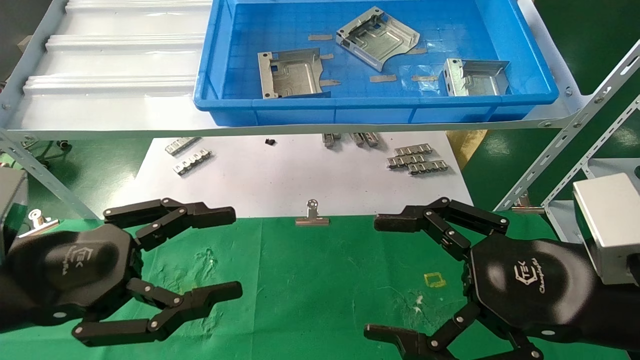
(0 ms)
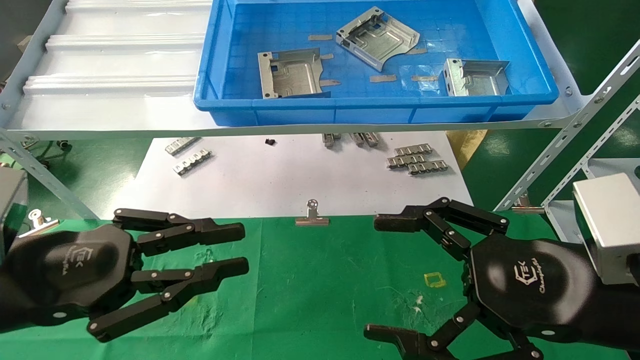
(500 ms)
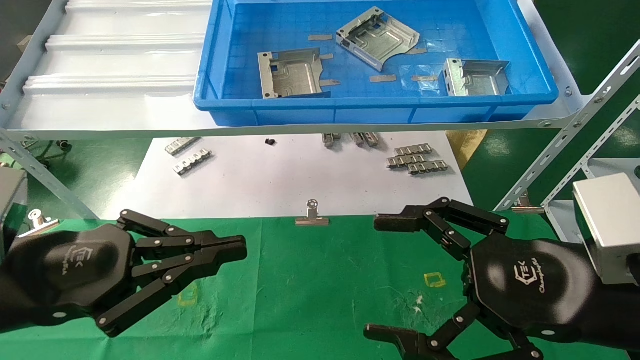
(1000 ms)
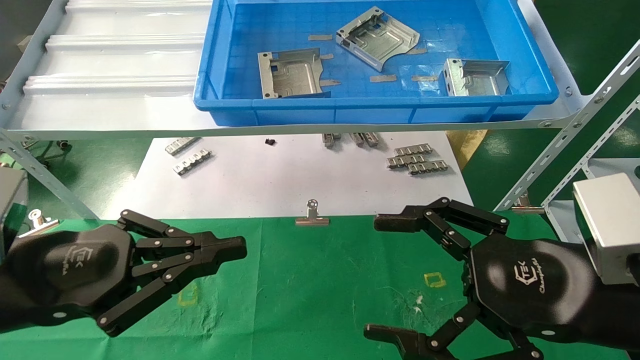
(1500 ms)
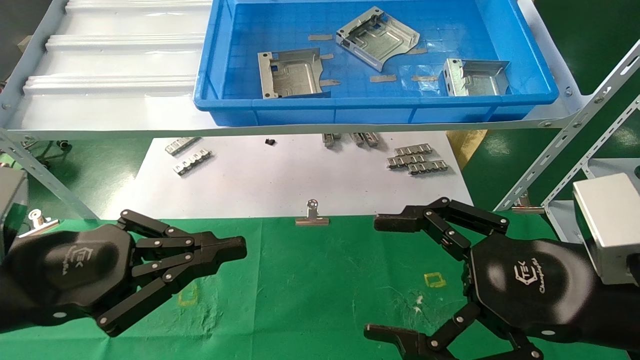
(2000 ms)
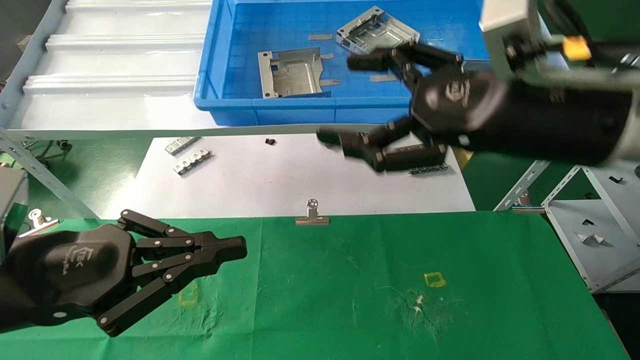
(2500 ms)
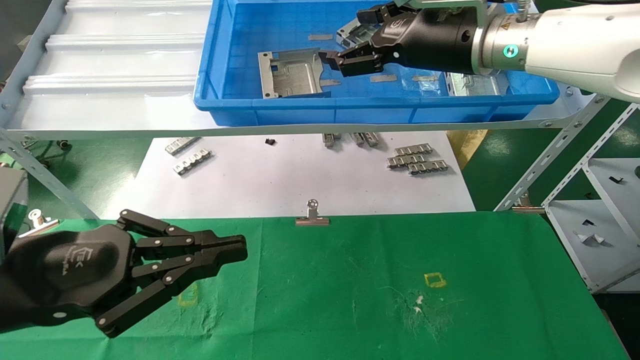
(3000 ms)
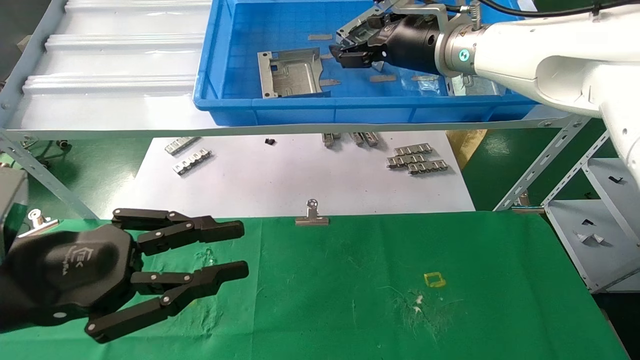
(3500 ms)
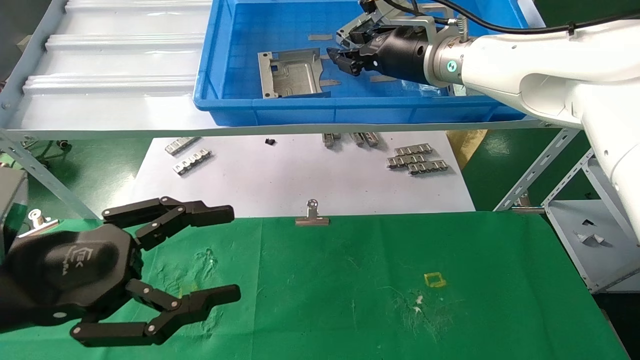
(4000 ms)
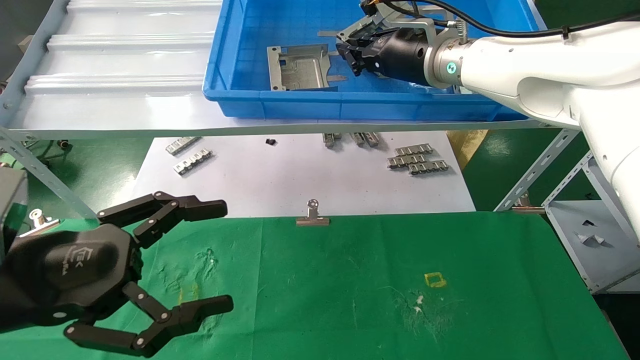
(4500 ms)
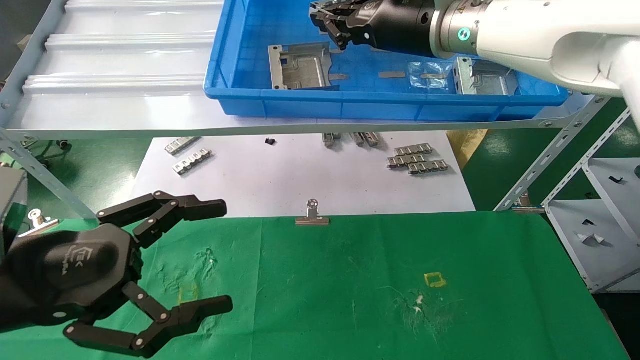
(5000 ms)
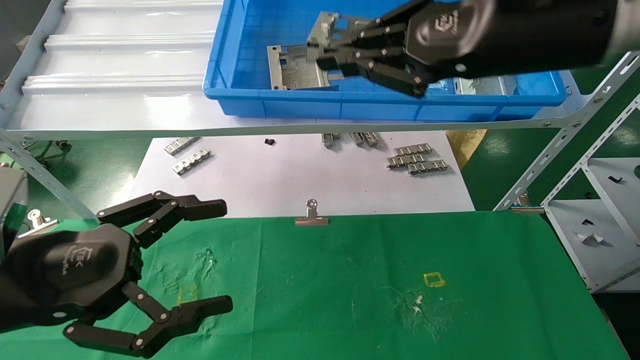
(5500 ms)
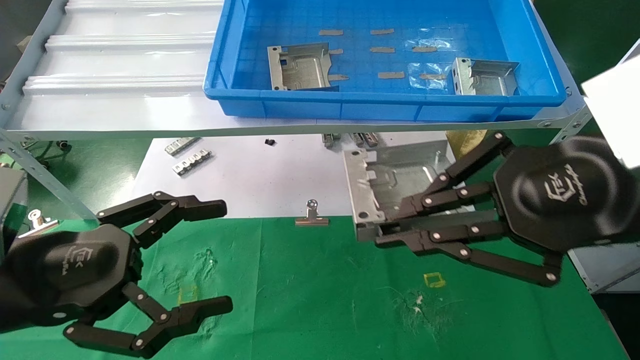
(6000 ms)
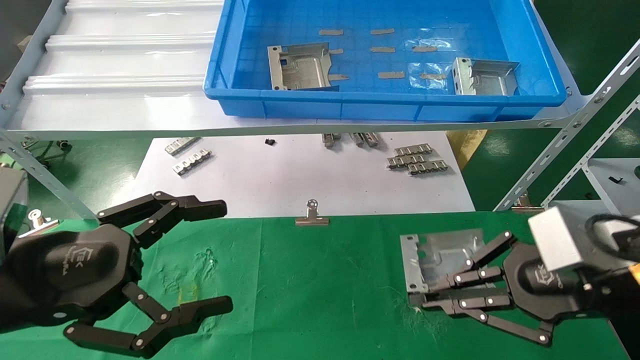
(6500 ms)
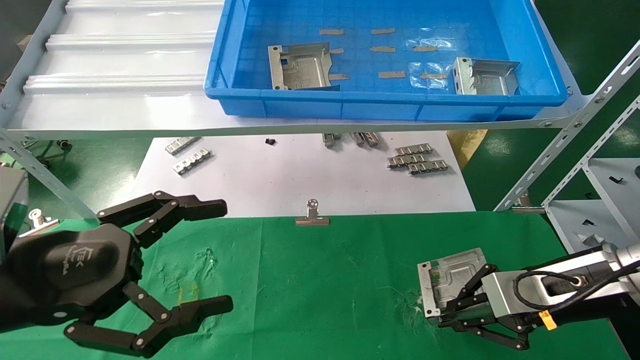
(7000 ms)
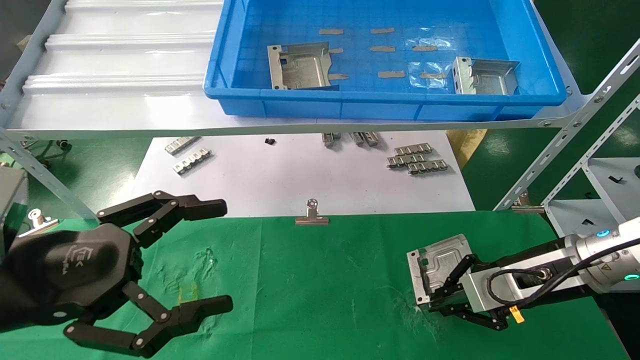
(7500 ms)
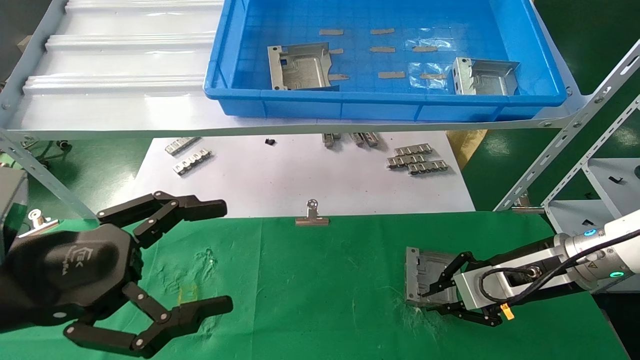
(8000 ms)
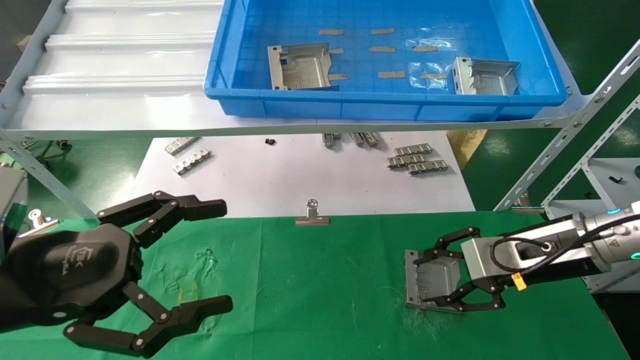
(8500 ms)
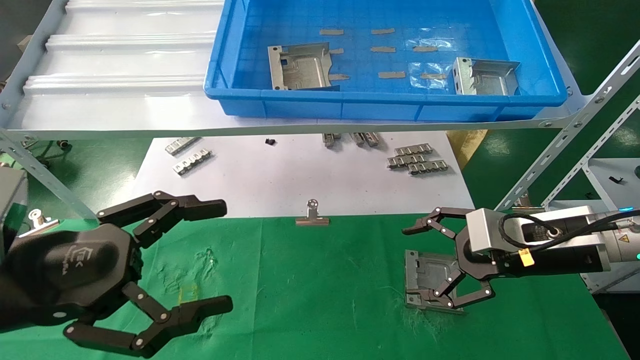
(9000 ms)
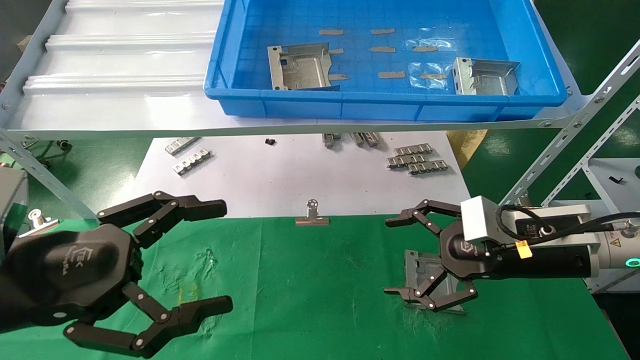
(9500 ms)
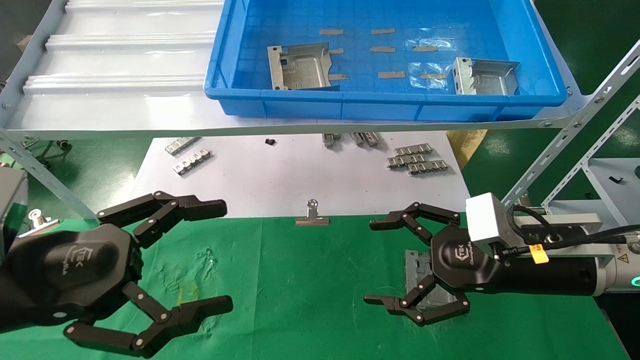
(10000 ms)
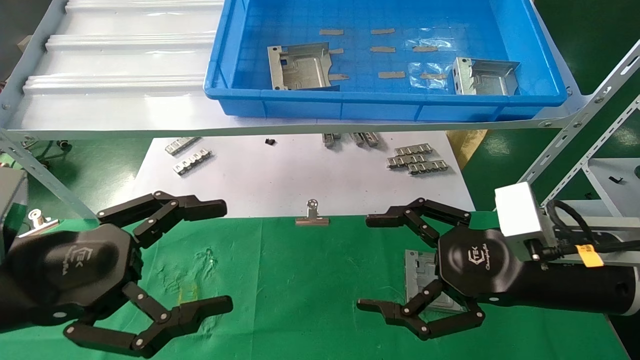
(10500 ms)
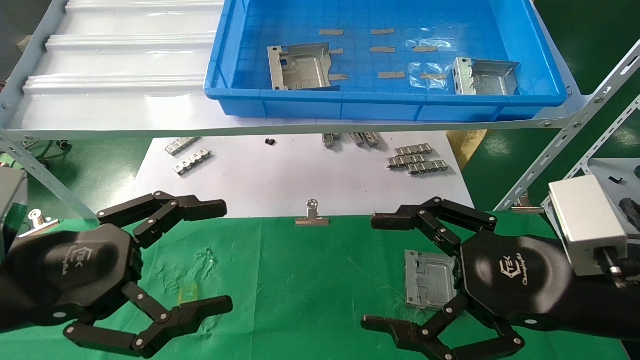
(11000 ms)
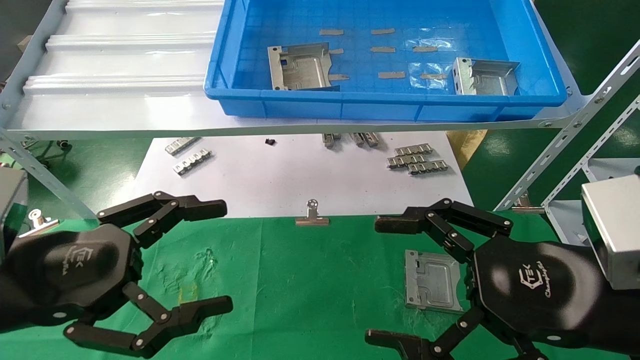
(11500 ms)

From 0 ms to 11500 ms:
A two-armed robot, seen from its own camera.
Task of the whole recording: use the mechanical arm to pick up the parts and place them on the table.
Step, from 2500 ms to 5500 ms: Pick up the hard drive bracket from the feeding area.
Step, from 6000 ms to 9000 ms: Place the hard drive bracket into the box.
From 0 ms to 2000 ms: The left gripper closes.
From 2000 ms to 4000 ms: The left gripper opens its fingers. Meanwhile the right gripper is displaced forward and upward by some 30 cm, and closes up.
From 4000 ms to 6000 ms: The left gripper opens up. The right gripper heads backward and to the right, covering some 25 cm, and closes its fingers.
From 6000 ms to 7500 ms: The right gripper is displaced downward and forward by some 25 cm.
From 7500 ms to 9500 ms: The right gripper opens up.
From 9500 ms to 11500 ms: The right gripper heads backward, covering about 15 cm.
